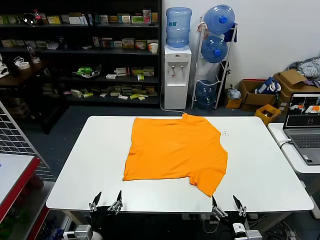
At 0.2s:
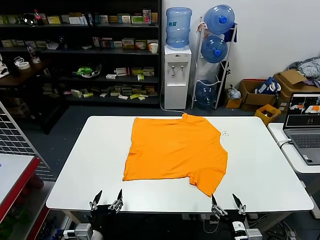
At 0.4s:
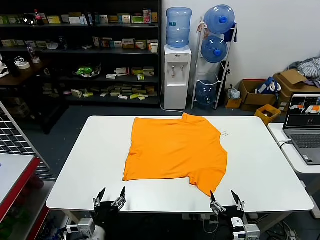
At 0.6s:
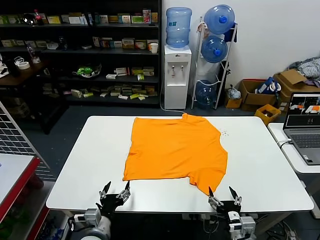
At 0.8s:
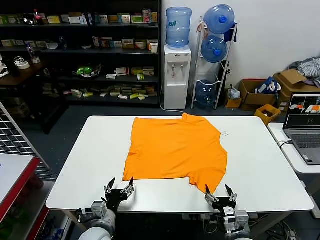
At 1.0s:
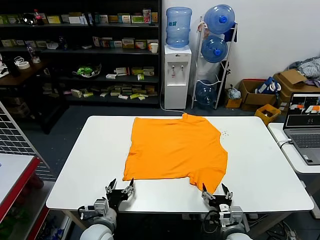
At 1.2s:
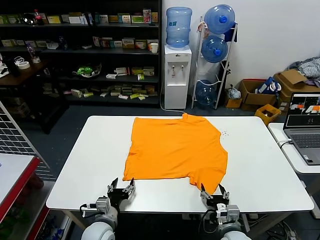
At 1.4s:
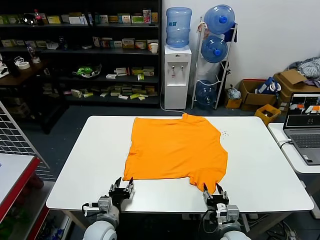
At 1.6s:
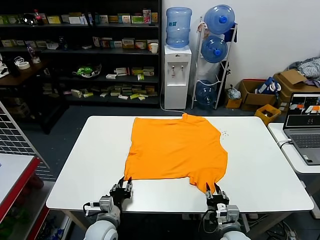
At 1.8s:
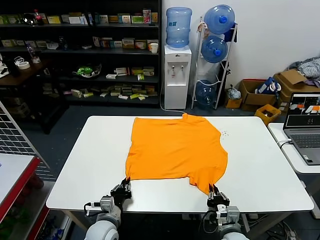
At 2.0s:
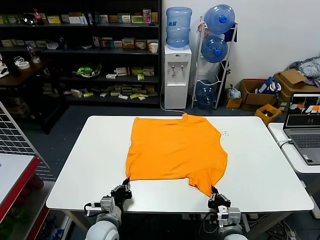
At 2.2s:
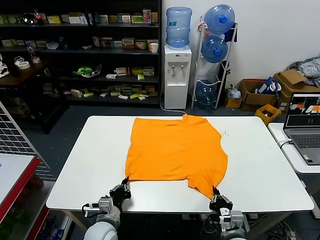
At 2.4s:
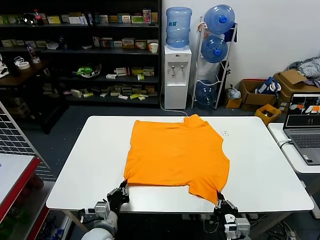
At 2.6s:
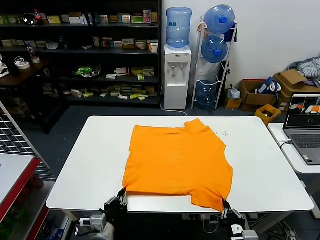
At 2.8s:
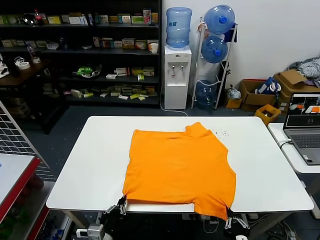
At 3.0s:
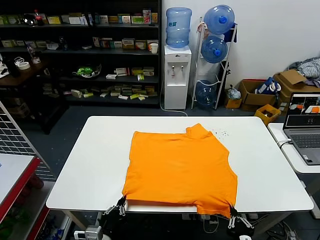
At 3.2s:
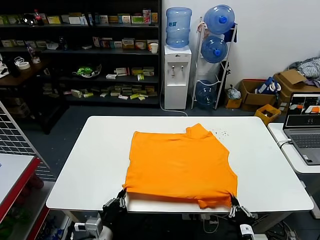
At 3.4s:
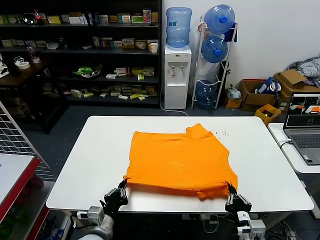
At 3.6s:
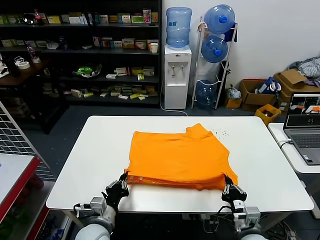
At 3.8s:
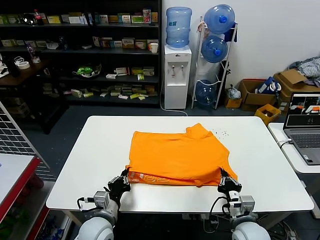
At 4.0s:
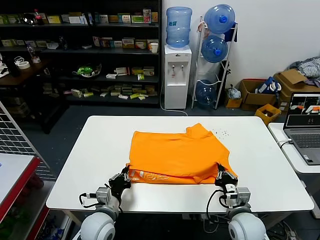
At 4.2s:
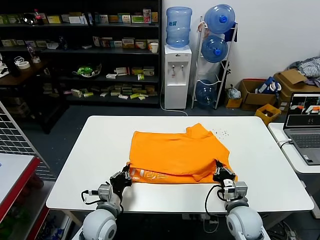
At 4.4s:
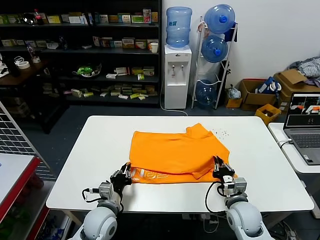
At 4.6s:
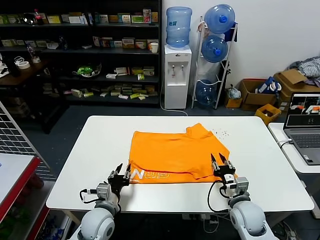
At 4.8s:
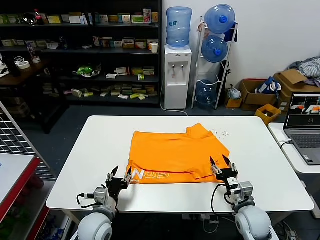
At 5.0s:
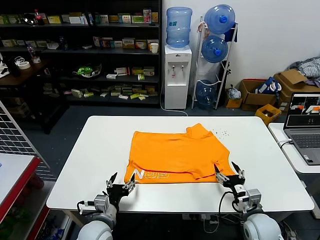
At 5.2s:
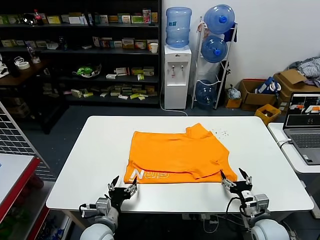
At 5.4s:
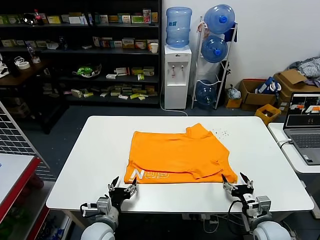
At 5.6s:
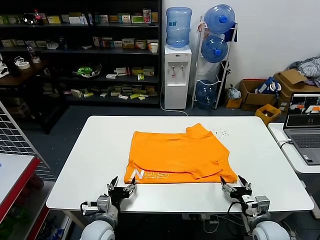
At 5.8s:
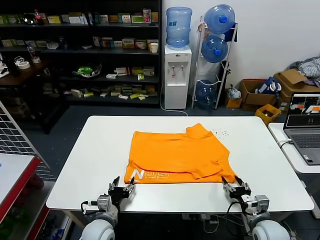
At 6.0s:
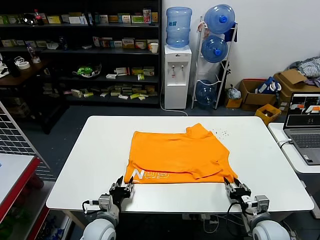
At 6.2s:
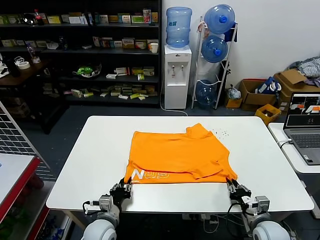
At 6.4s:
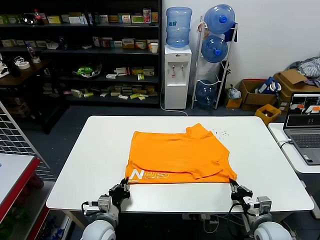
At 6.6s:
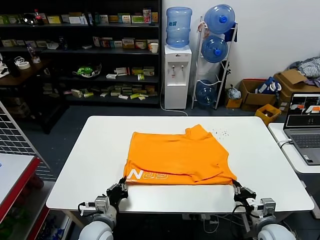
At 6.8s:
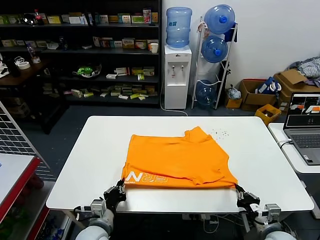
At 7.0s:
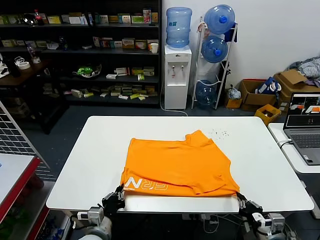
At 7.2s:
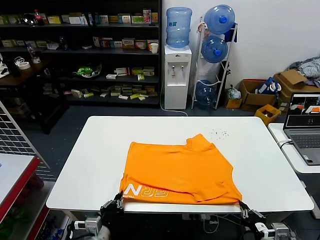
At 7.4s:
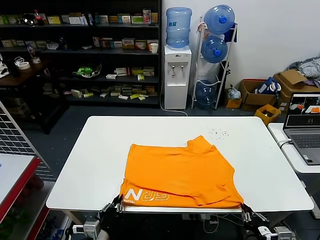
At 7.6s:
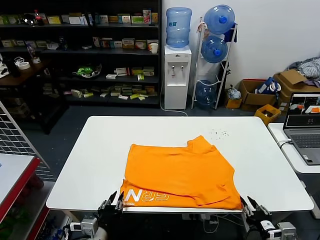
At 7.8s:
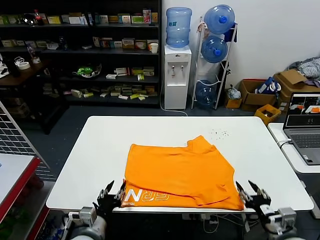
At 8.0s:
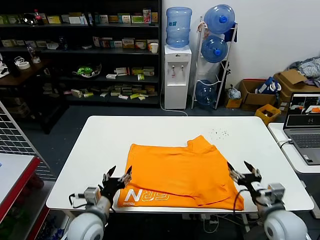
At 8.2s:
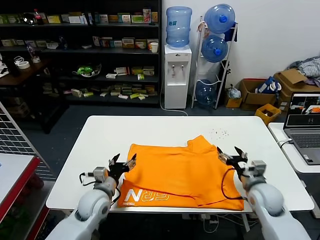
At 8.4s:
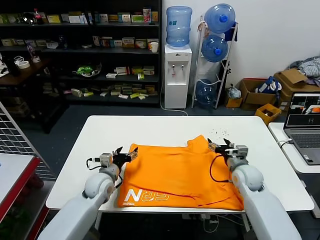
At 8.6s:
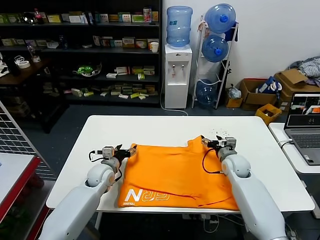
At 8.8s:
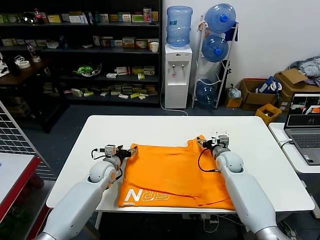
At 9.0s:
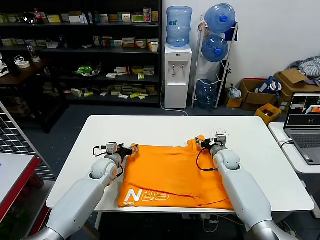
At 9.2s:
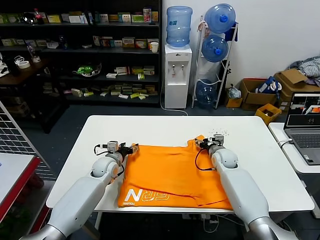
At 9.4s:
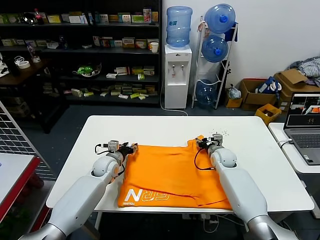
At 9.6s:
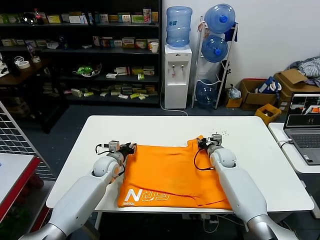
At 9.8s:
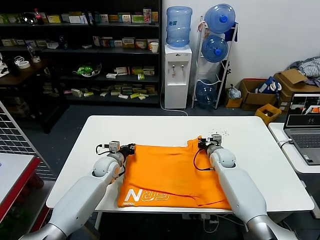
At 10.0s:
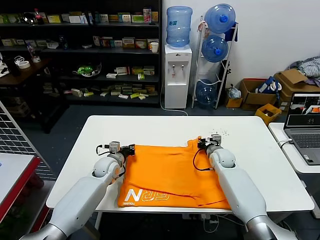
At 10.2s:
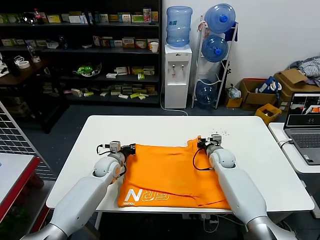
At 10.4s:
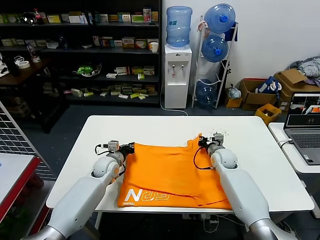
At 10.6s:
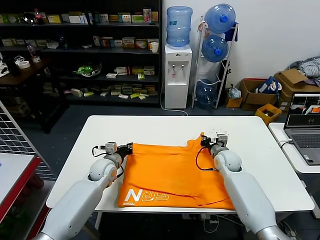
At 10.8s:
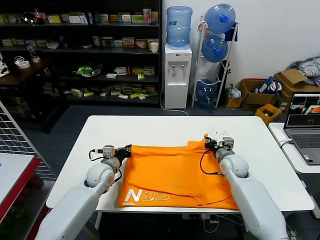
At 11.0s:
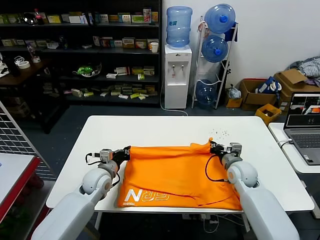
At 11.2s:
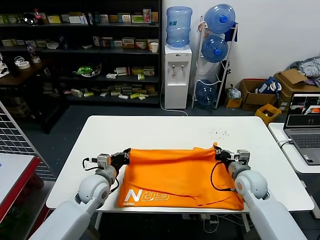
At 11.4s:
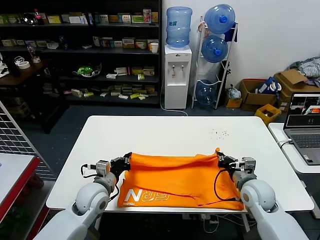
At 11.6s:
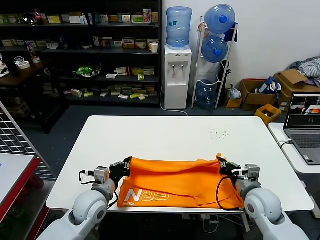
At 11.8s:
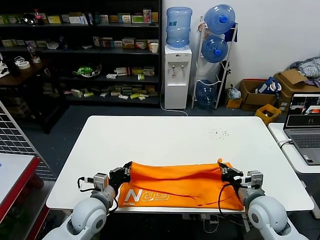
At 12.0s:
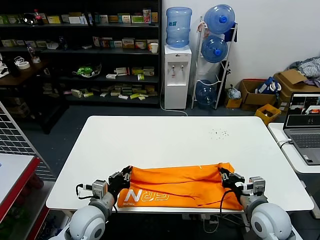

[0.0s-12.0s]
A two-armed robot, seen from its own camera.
Task of the whole recording: fold and organize the clothes.
Step, 0.0s to 3.0s: use both grippers simultaneously to clamp the lower edge of the clothing fabric.
Step, 3.2s to 4.6s: use both grippers to drag the lower edge of the fabric forward and fold it over the upper edge.
Step, 4.8s to 7.6s: Drag the clothes downward with both gripper.
Step, 7.8s to 10.6s: use both grippers simultaneously to clamp the upper edge of the clothing fabric.
1.6s to 3.0s: The two grippers go roughly 10 cm backward and upward. The left gripper closes its fingers.
3.0s to 4.4s: Both grippers move forward, roughly 15 cm.
4.4s to 6.0s: The left gripper changes place by some 5 cm, and opens its fingers; the right gripper moves to the right and backward, approximately 10 cm, and opens, then closes again.
6.0s to 7.6s: Both grippers move backward and upward, roughly 10 cm. The right gripper closes and opens again.
7.6s to 9.0s: Both grippers travel together forward, approximately 35 cm. The left gripper opens up. The right gripper opens.
9.0s to 10.4s: The right gripper closes up. The left gripper closes up.
10.4s to 12.0s: The grippers both shift backward by approximately 25 cm.

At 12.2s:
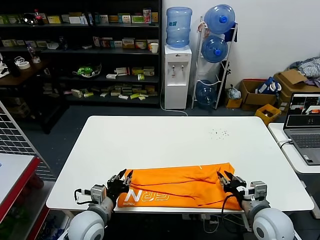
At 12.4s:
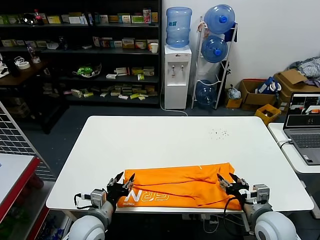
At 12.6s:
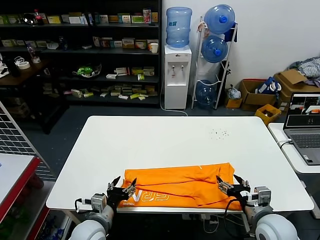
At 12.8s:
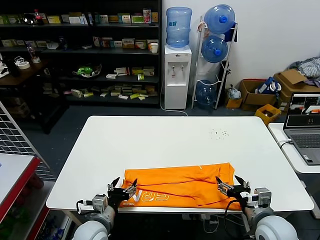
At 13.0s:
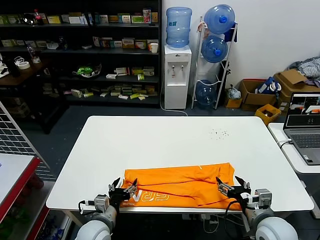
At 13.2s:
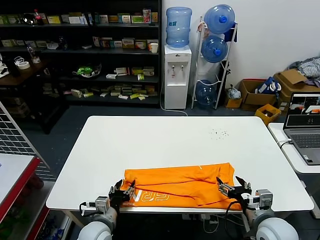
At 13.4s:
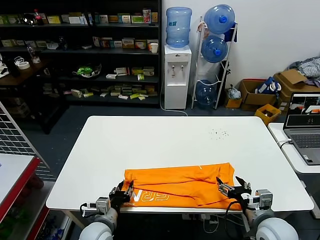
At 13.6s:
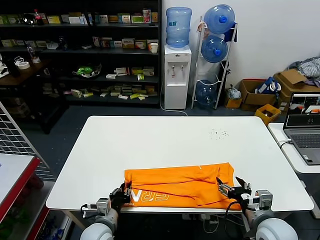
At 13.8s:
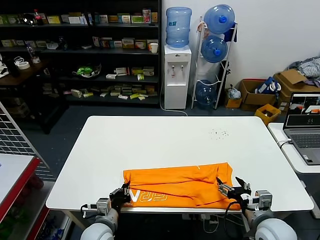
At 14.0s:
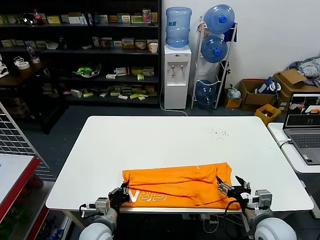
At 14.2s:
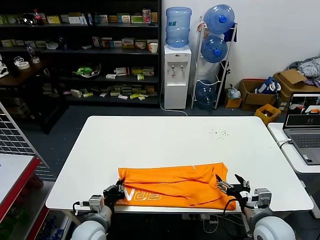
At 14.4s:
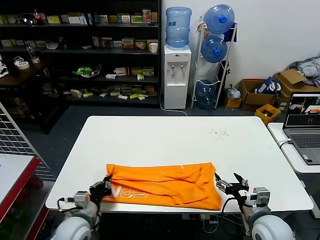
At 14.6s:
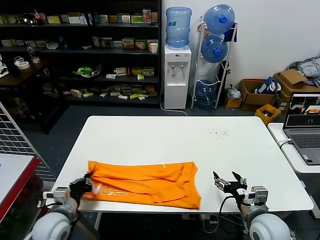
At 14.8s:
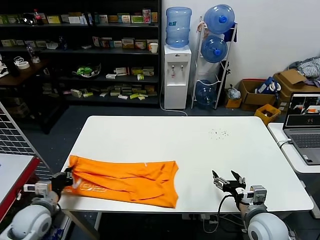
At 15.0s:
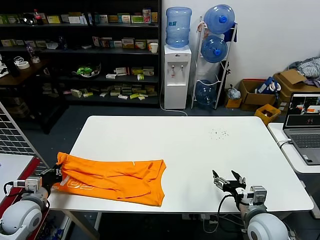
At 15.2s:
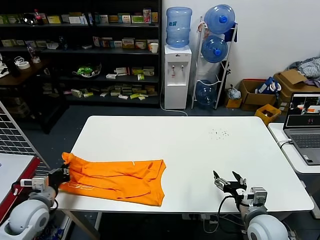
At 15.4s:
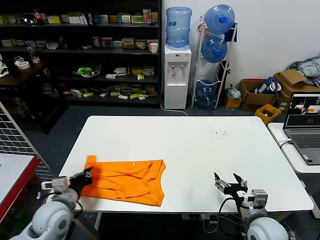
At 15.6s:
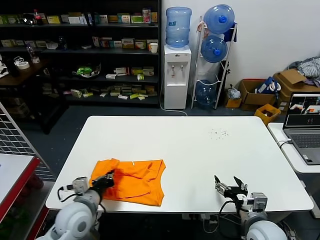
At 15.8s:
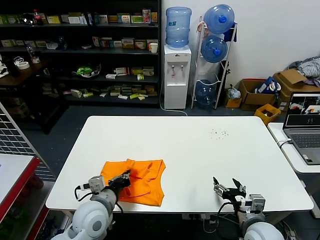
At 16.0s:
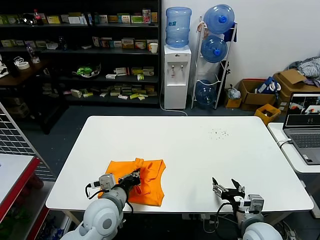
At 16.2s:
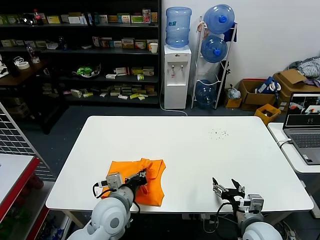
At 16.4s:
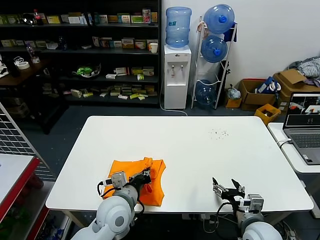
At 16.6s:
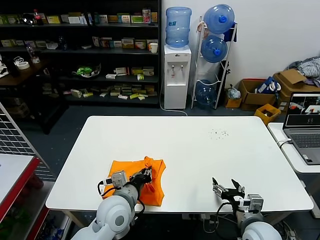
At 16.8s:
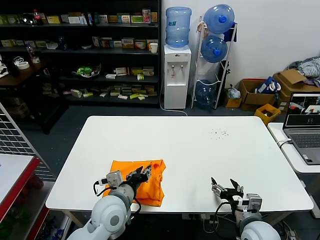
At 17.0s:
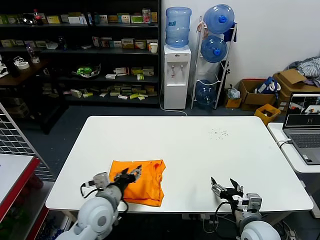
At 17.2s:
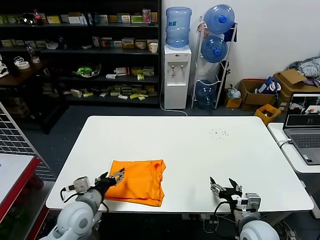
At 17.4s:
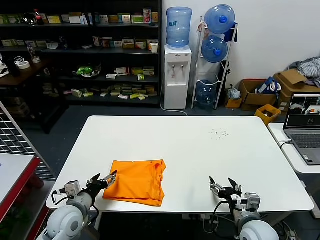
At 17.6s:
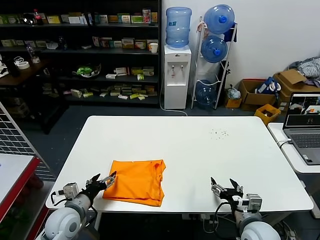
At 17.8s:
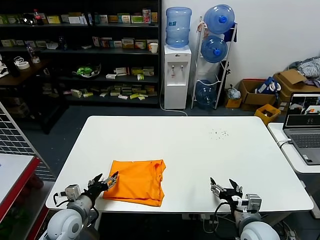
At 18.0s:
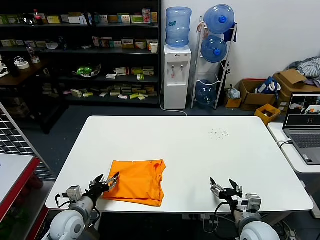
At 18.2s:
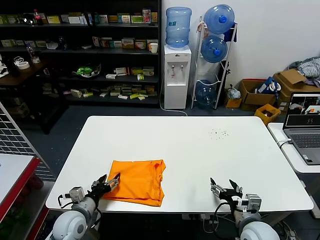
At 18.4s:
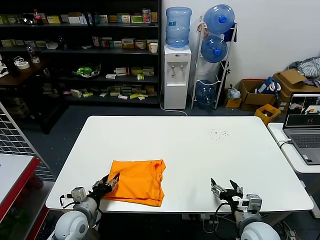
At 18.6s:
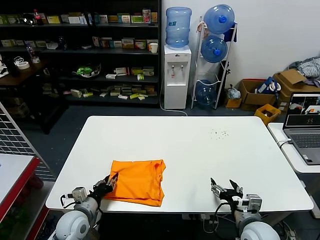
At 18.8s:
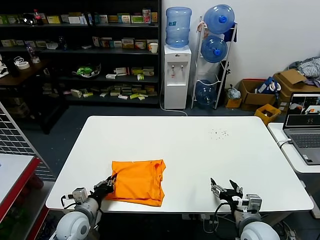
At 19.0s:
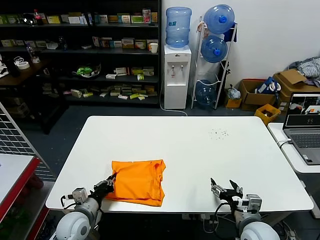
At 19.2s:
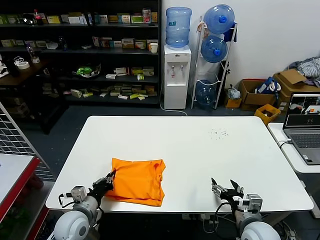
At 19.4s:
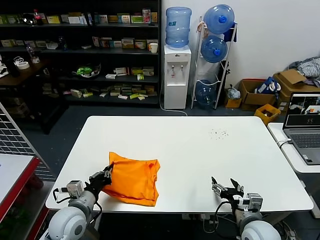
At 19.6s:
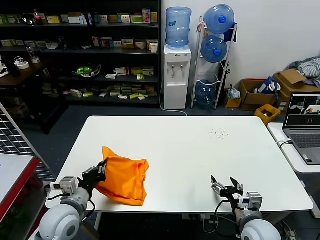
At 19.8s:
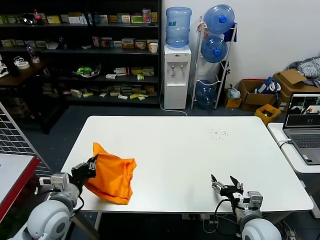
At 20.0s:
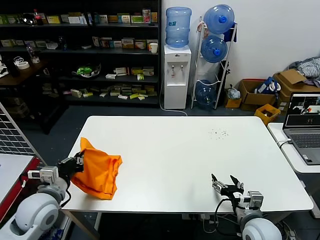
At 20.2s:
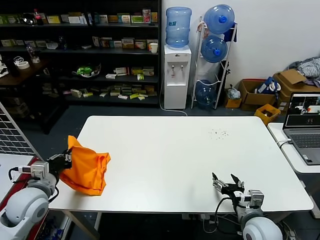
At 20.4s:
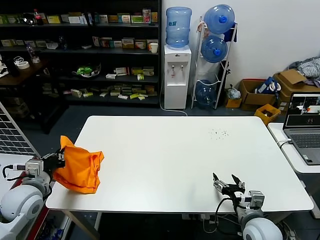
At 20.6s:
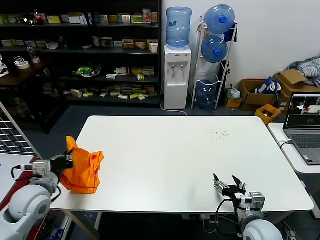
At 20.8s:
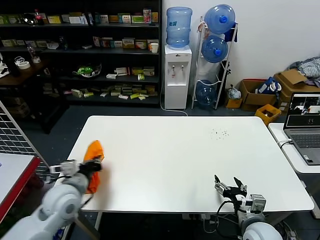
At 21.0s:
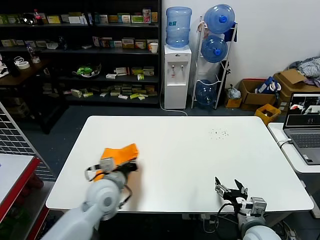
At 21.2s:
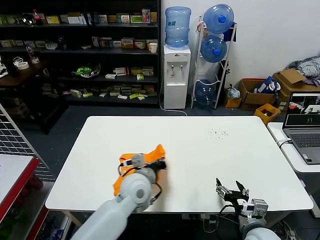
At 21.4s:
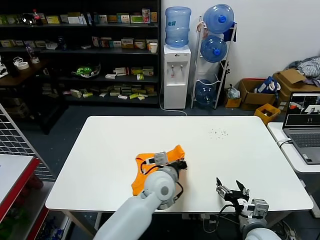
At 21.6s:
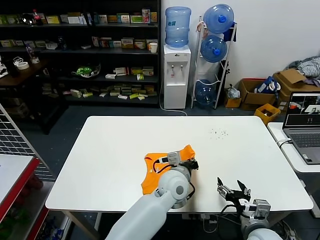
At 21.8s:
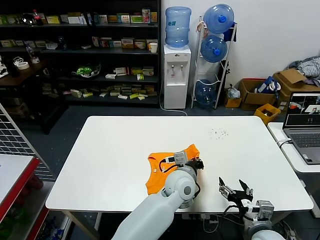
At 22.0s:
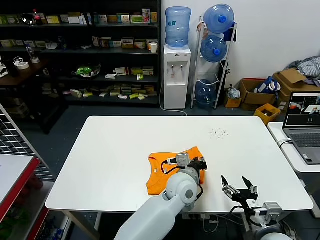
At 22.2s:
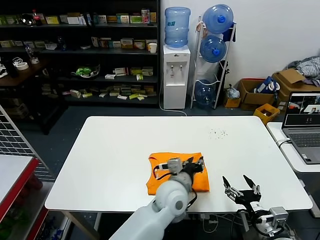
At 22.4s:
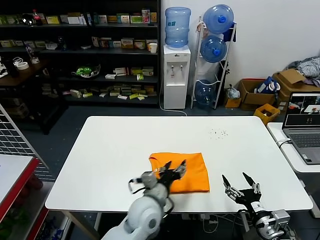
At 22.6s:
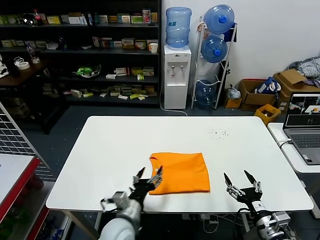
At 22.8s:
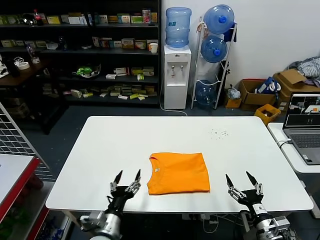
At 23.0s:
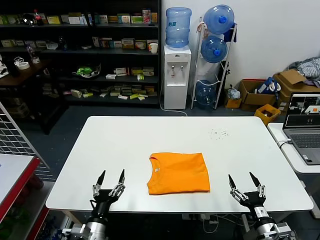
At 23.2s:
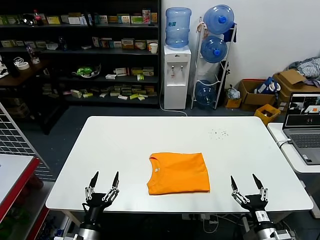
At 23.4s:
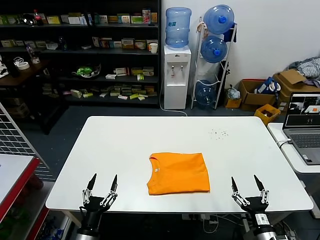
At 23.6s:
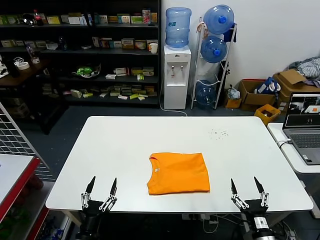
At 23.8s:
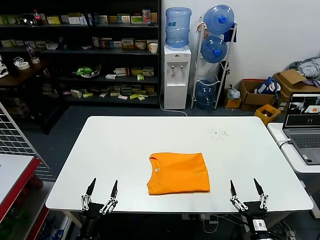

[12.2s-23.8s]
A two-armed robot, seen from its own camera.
Task of the whole recording: fold and organize the clothes.
Step, 12.6s to 14.4s: use the left gripper to clamp the left edge of the fabric.
Step, 14.6s to 16.8s: use the left gripper to drag the left edge of the fabric to the left and folds it over the right edge.
Step, 17.0s to 22.2s: Flip the folded clothes over with left gripper.
12.2s to 13.6s: The right gripper opens its fingers. The left gripper travels downward by approximately 5 cm, and opens, then closes again.
13.6s to 15.0s: The left gripper is displaced to the left by approximately 20 cm.
15.0s to 16.6s: The left gripper heads to the right, covering about 30 cm.
16.6s to 18.0s: The left gripper travels to the left and downward by about 20 cm, and opens up.
18.0s to 19.4s: The left gripper shifts by roughly 5 cm, and closes.
19.4s to 21.0s: The left gripper goes about 10 cm upward, to the right and forward.
21.0s to 22.4s: The right gripper shifts by approximately 5 cm; the left gripper moves to the right, approximately 20 cm, and opens up.
22.4s to 23.8s: The left gripper shifts approximately 30 cm to the left, backward and downward, while the right gripper is displaced downward by some 10 cm.
